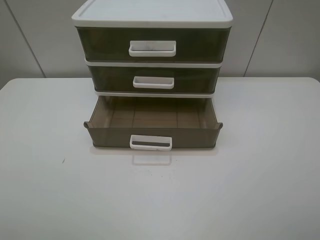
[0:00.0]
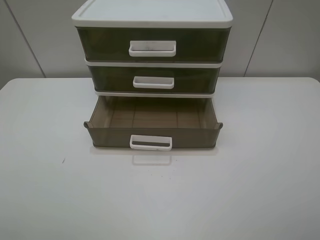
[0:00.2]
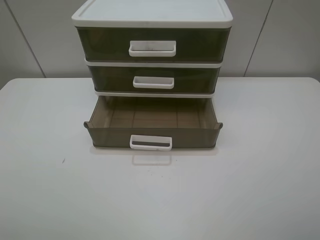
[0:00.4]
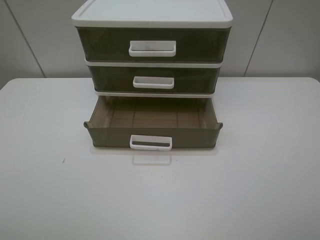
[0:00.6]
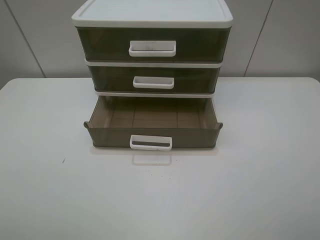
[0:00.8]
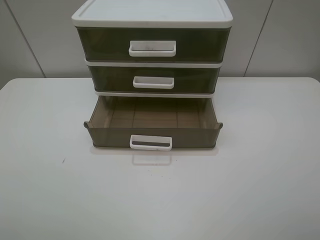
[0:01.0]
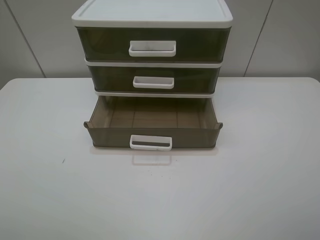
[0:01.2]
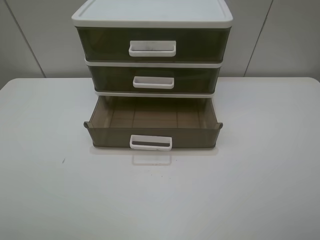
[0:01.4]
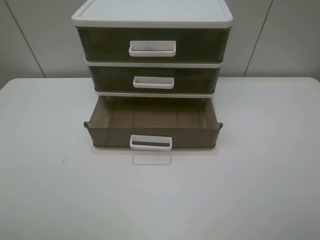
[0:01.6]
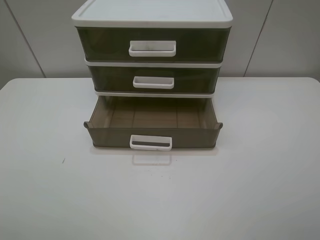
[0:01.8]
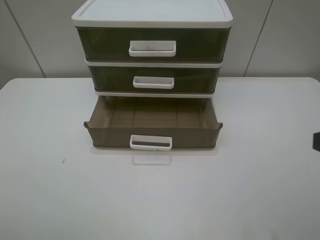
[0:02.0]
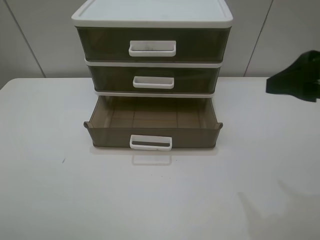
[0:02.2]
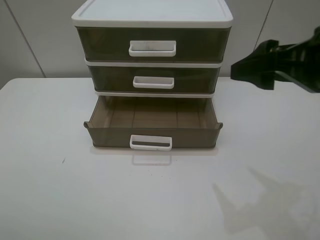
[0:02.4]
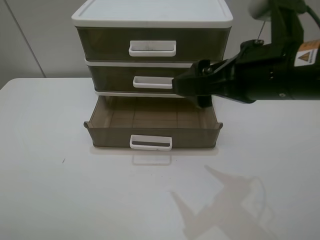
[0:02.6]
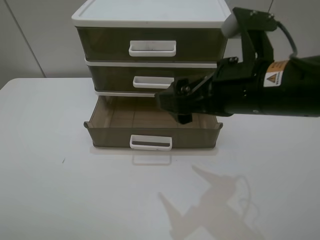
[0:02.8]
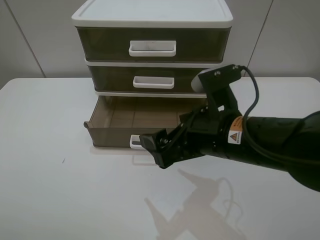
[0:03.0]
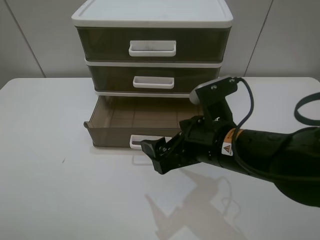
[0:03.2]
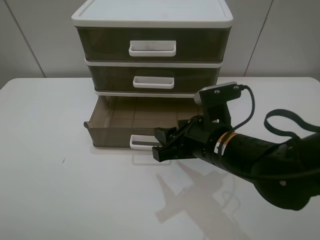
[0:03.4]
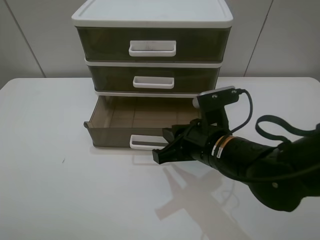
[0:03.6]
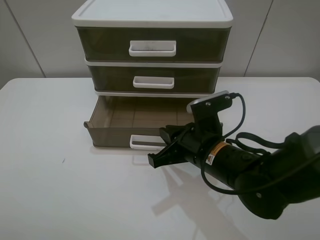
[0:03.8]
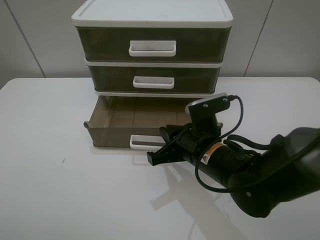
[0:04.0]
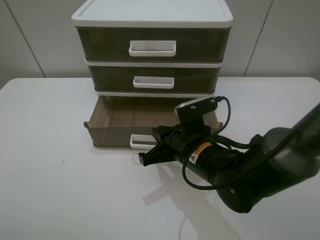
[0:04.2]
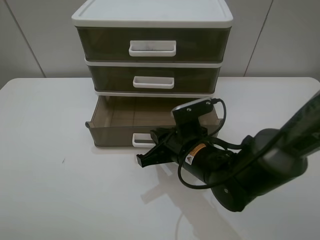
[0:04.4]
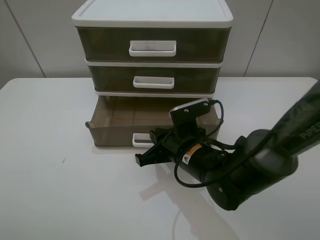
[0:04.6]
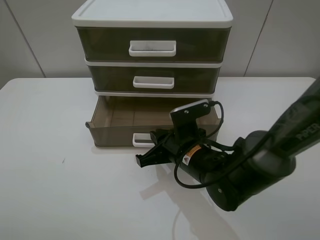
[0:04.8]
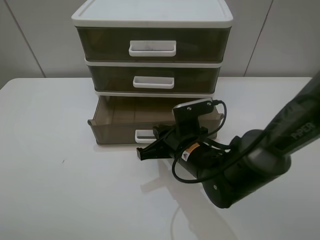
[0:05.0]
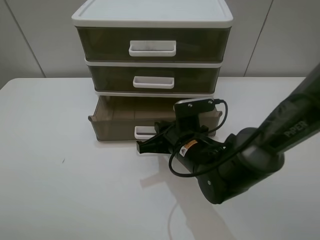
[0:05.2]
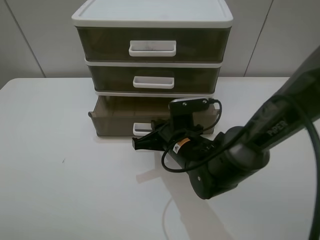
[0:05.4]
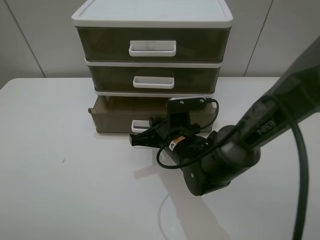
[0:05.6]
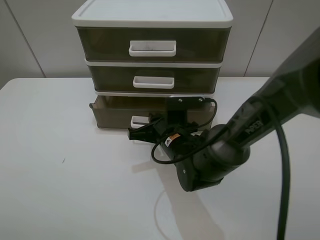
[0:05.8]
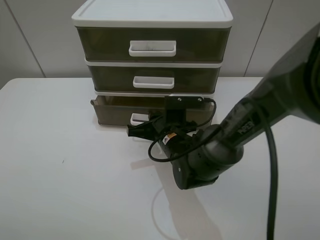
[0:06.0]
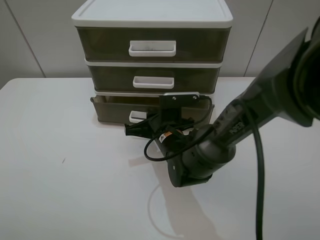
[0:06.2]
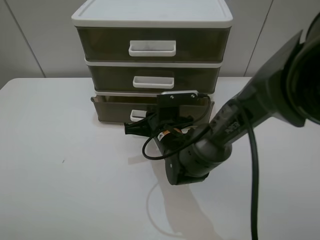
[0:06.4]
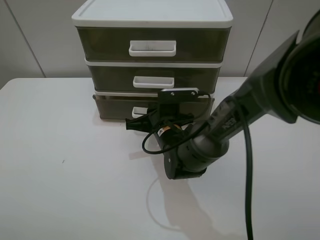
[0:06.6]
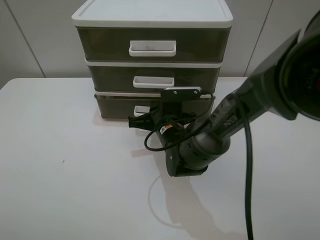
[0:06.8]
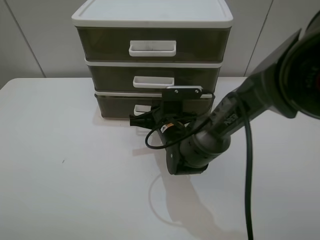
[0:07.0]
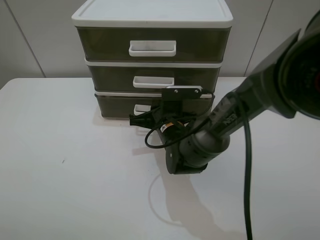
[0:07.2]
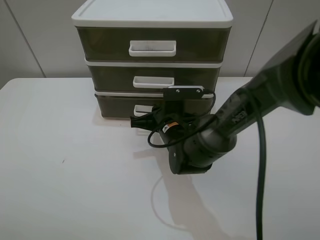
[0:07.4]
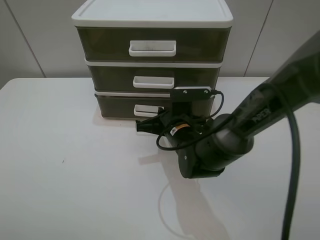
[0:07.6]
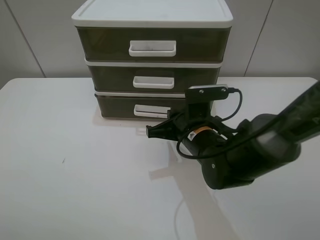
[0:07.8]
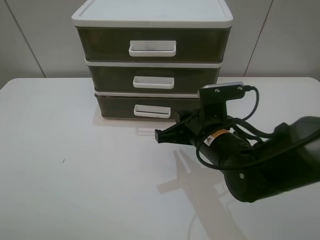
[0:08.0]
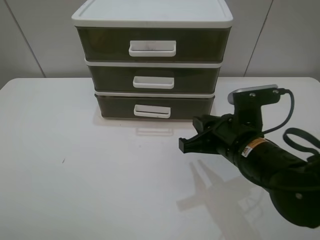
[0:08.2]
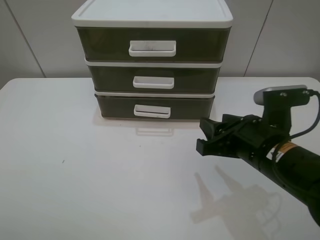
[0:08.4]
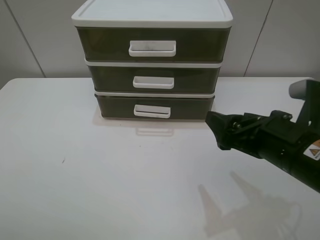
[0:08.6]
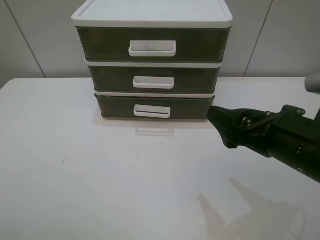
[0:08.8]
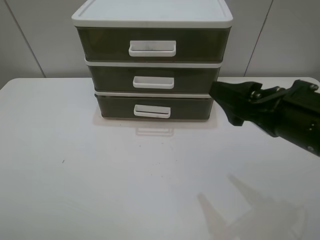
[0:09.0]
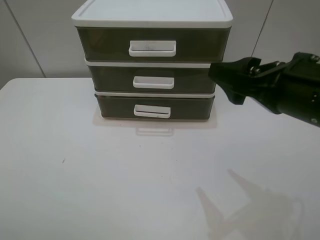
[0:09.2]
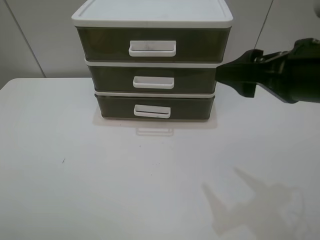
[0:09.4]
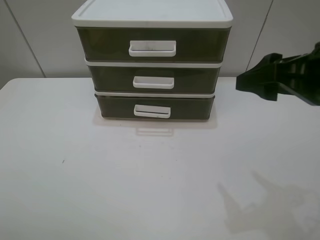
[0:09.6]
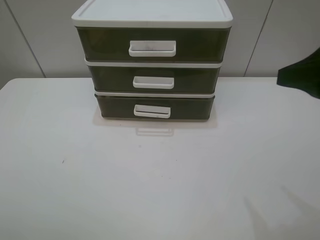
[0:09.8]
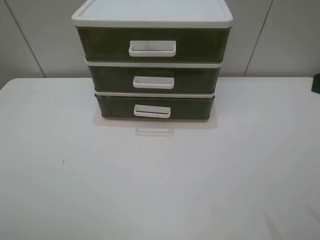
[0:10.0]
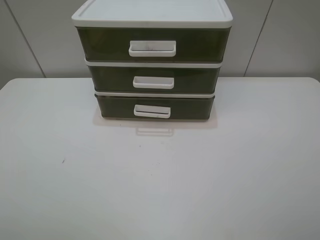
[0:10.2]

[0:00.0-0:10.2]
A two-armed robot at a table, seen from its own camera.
Task of the whole recording: close the bottom drawer.
Step, 0:00.0 to 0:04.6: Use the right gripper to contact the bottom layer of the storage cabinet.
Step, 0:04.8 to 0:07.2: Push the bottom drawer closed.
0:00.0 to 0:01.4: The two grippers keep their place.
0:01.4 to 0:03.0: The right gripper heads to the left, forward and downward, covering roughly 30 cm.
0:03.0 to 0:04.4: The right gripper heads downward, covering some 10 cm, and closes.
0:04.4 to 0:05.8: The right gripper ends up some 5 cm from where it was.
0:05.8 to 0:07.2: The grippers make only small movements.
0:07.2 to 0:08.8: The right gripper moves backward, to the right and upward, some 25 cm, and opens its fingers.
0:08.8 to 0:10.2: The right gripper moves upward, to the right and backward, some 20 cm.

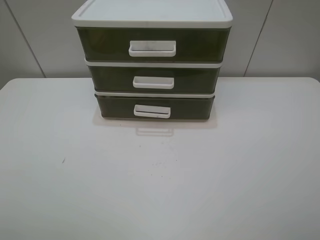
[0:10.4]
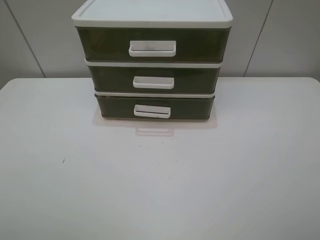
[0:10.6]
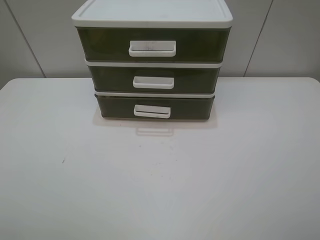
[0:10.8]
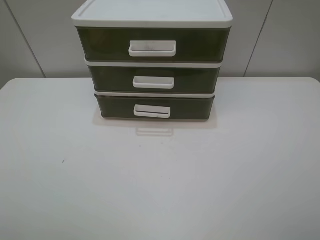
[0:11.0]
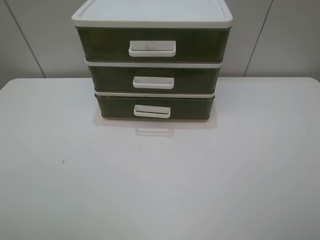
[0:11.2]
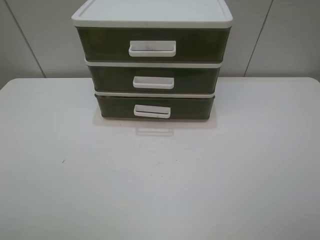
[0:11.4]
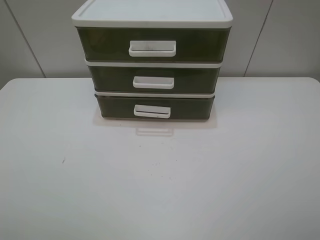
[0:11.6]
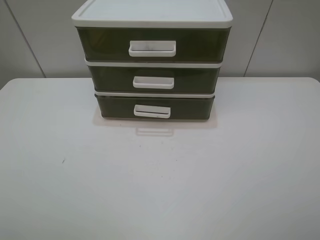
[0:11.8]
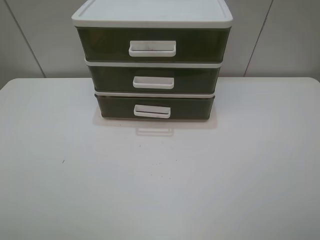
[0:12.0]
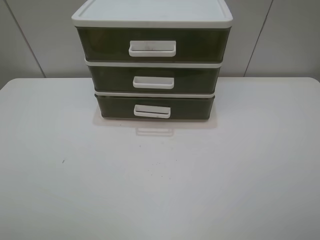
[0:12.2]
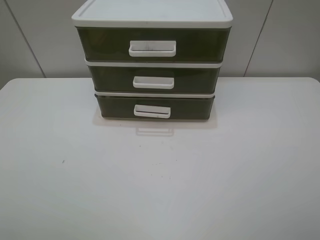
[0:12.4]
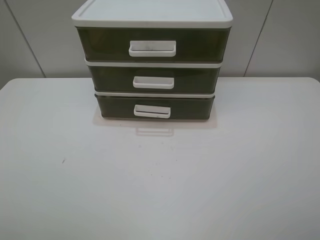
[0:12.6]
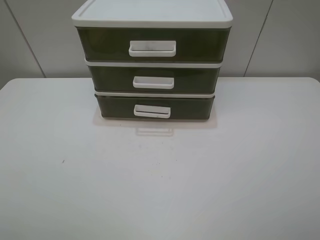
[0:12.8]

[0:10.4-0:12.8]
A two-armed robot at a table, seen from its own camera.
Task of the whole recording: close the bottom drawer.
0:11.6 to 0:12.8: Neither gripper changes place.
